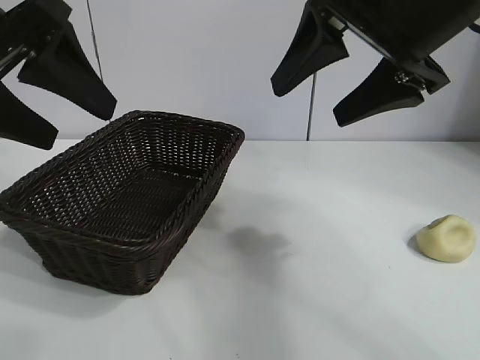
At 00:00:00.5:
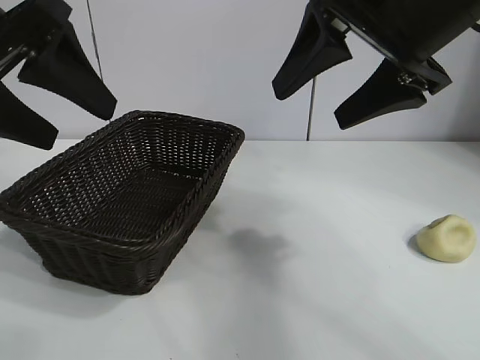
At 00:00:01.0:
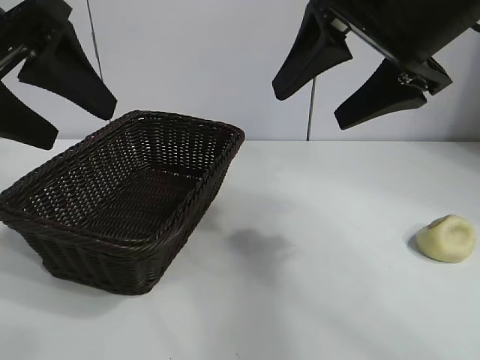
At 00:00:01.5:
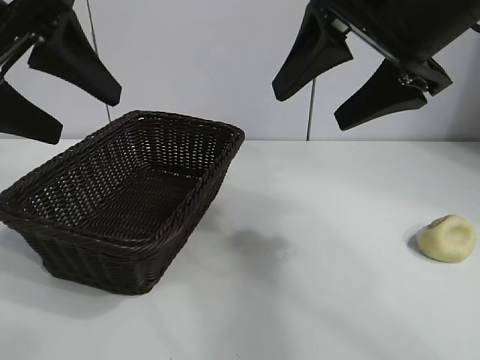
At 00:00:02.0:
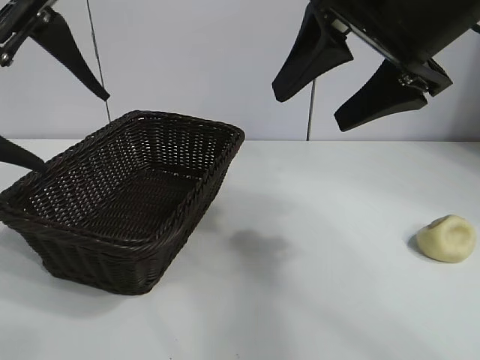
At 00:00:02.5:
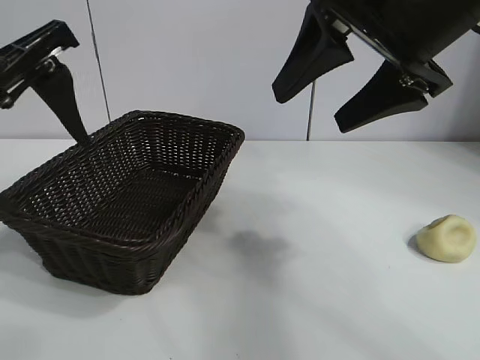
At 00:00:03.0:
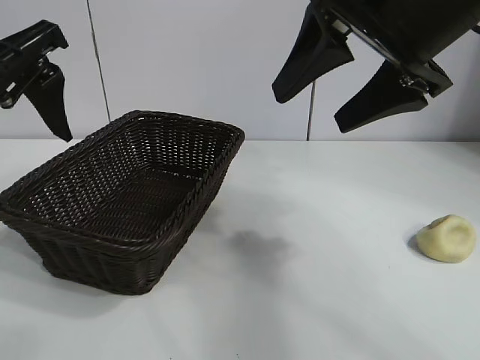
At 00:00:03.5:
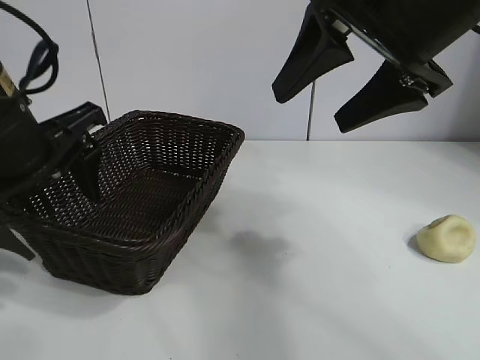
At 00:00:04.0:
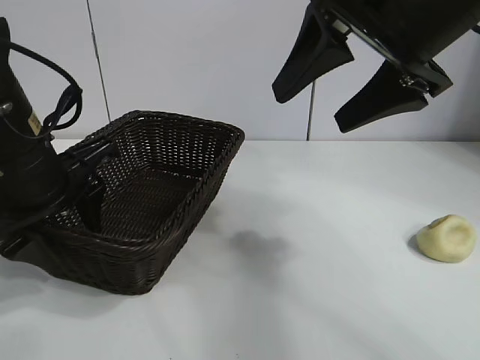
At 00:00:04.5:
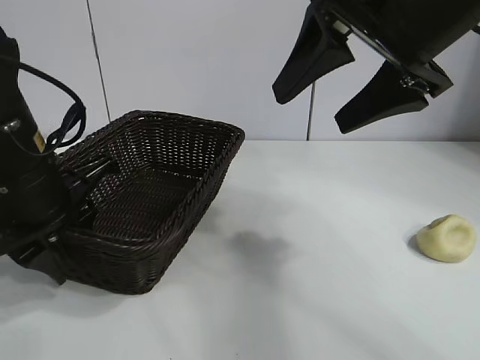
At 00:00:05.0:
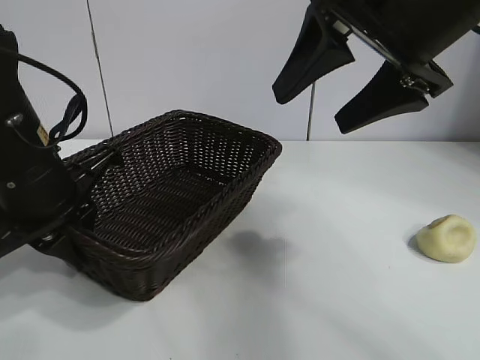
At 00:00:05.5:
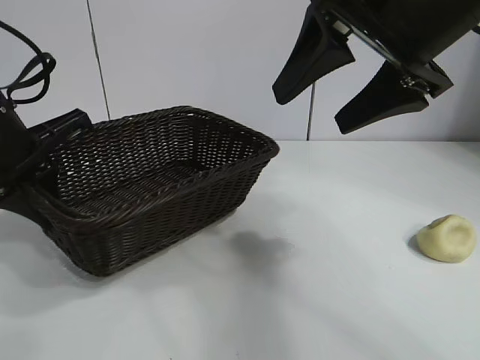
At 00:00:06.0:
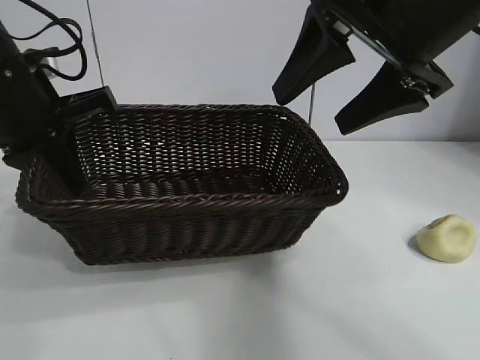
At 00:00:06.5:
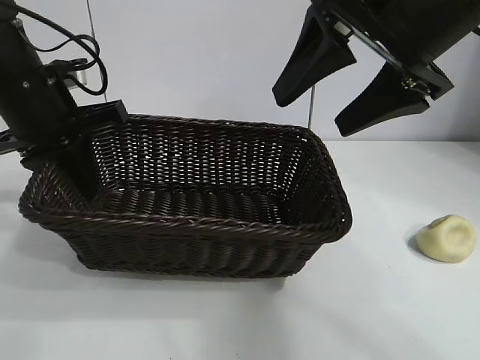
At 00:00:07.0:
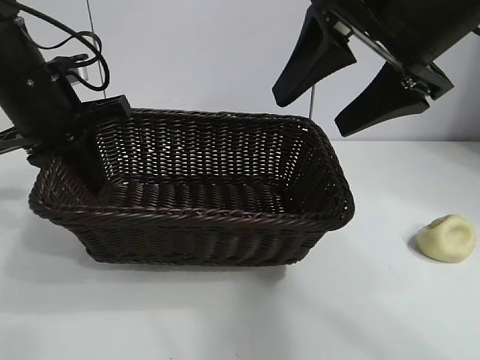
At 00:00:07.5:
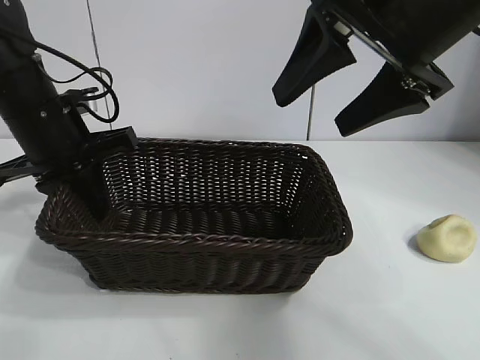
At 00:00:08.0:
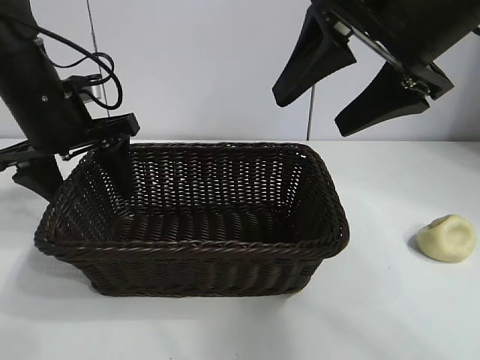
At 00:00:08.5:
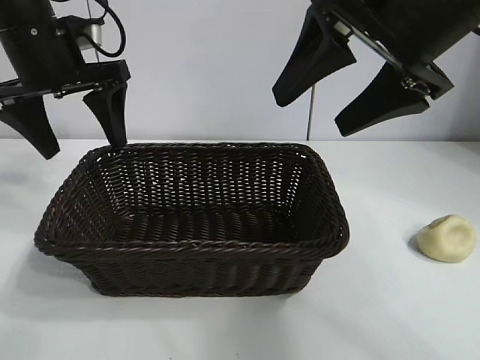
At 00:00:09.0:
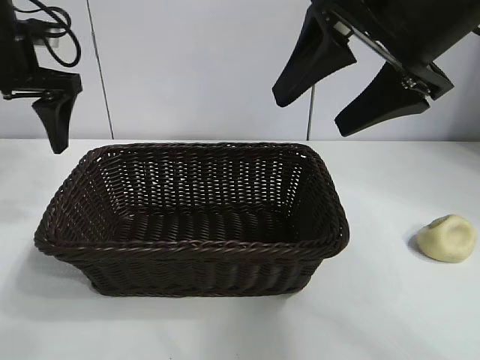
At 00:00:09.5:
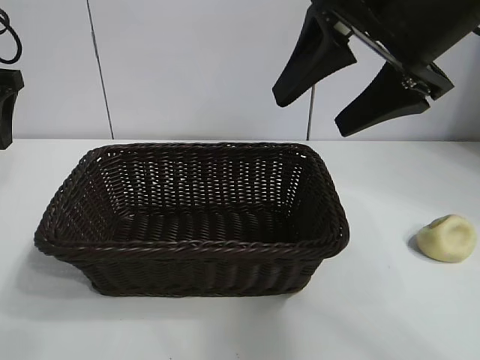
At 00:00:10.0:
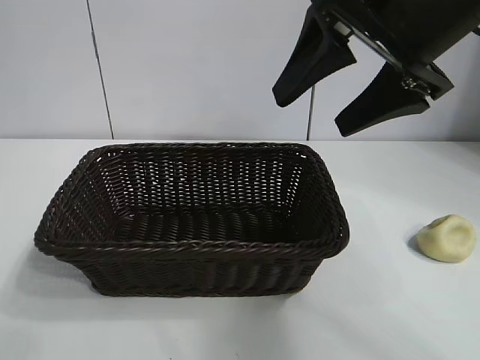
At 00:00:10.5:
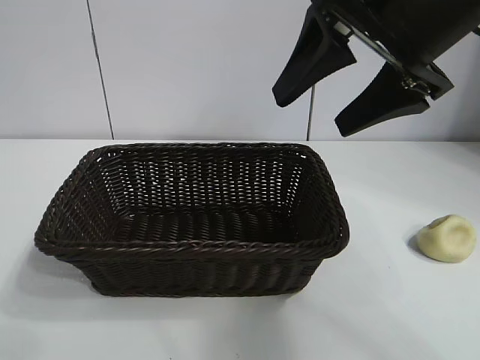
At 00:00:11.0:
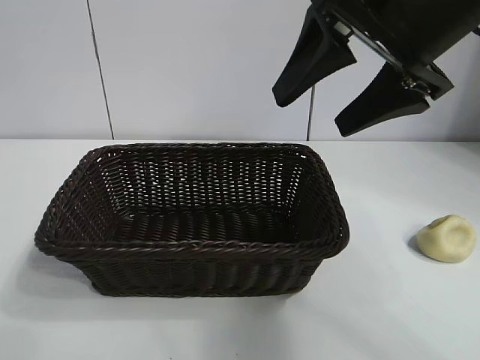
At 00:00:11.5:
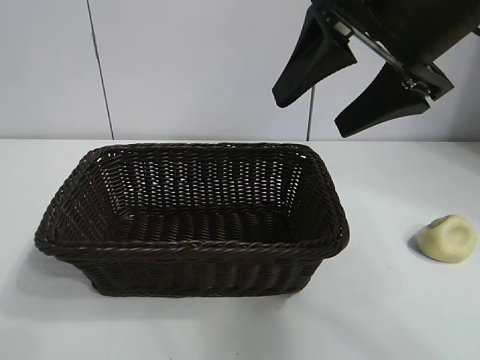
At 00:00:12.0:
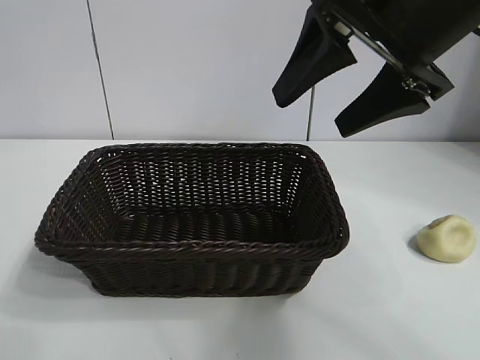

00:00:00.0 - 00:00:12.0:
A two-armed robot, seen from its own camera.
Task of the whole recording: pick up the egg yolk pastry and put it into the basket.
Step, 00:00:01.5 - 00:00:04.5: Grasp the basket with left gripper.
Step, 00:00:05.0 - 00:00:08.0: Place the basket in the center of view with left gripper.

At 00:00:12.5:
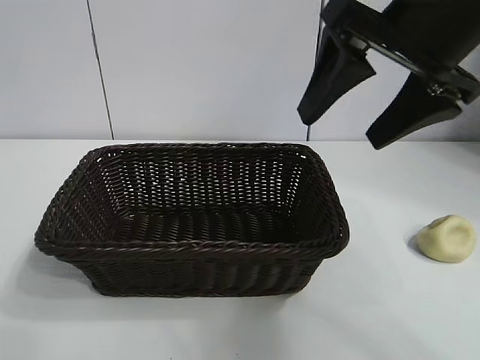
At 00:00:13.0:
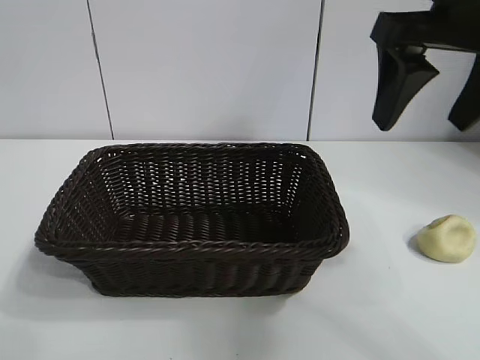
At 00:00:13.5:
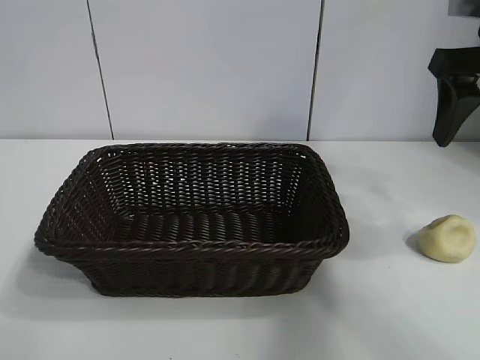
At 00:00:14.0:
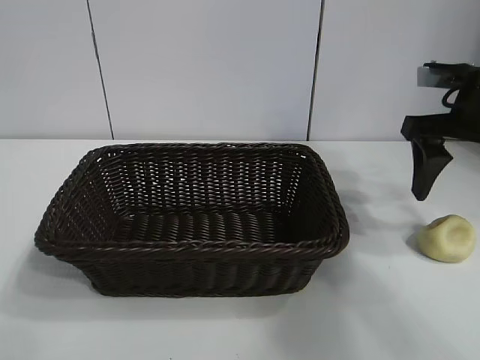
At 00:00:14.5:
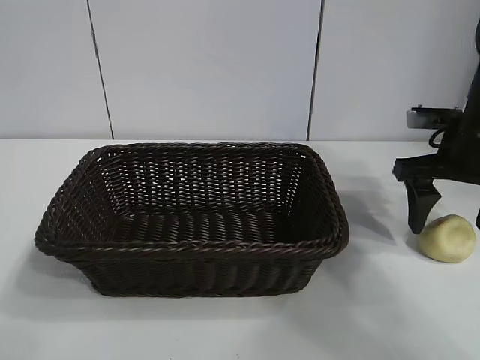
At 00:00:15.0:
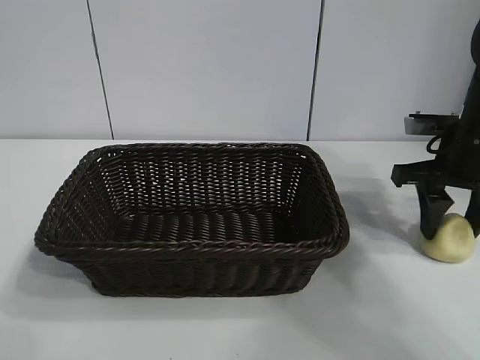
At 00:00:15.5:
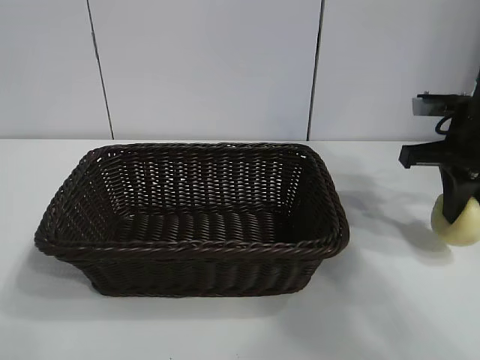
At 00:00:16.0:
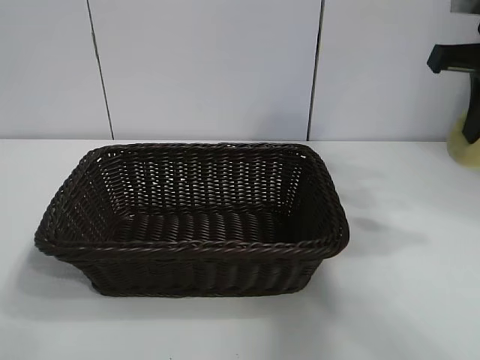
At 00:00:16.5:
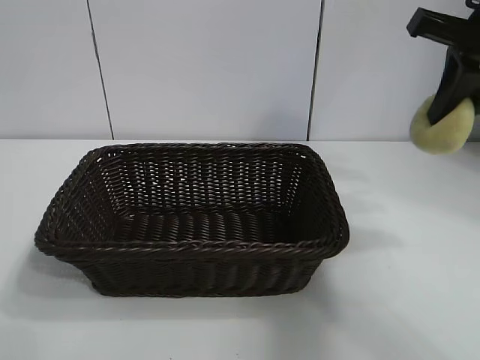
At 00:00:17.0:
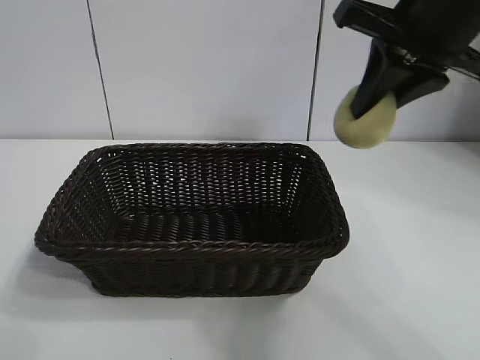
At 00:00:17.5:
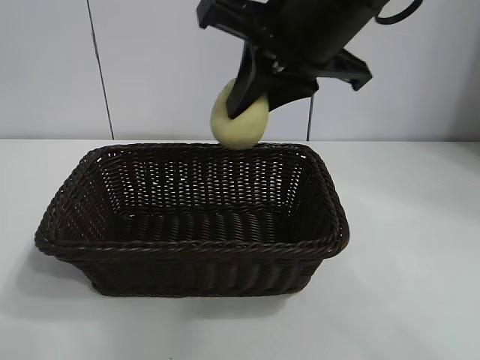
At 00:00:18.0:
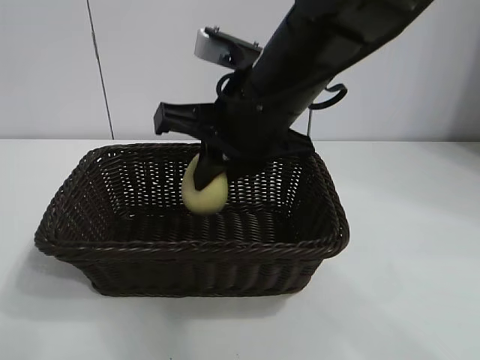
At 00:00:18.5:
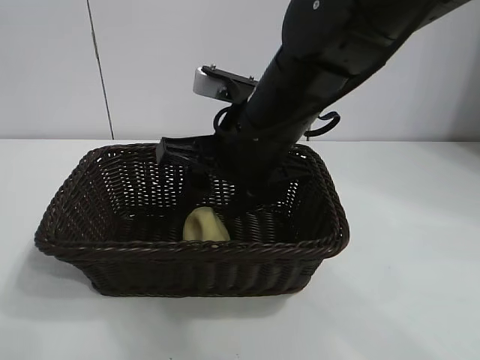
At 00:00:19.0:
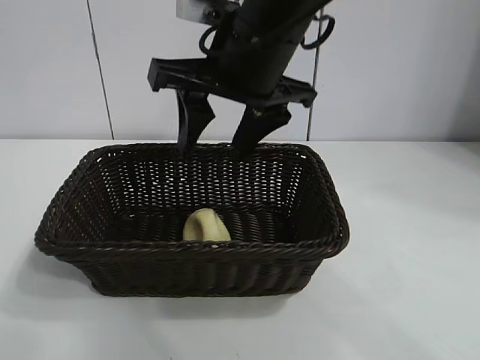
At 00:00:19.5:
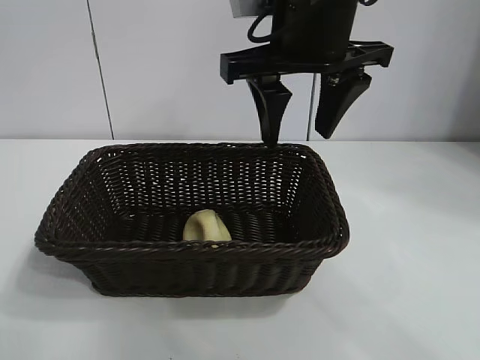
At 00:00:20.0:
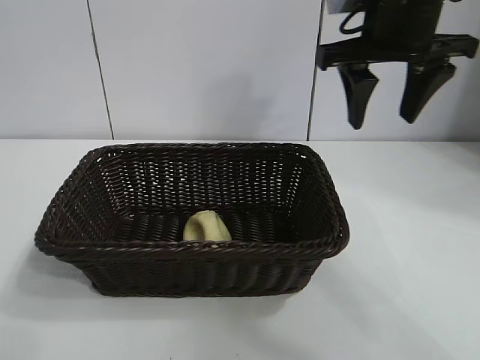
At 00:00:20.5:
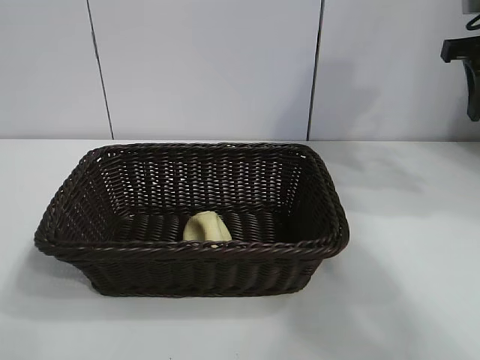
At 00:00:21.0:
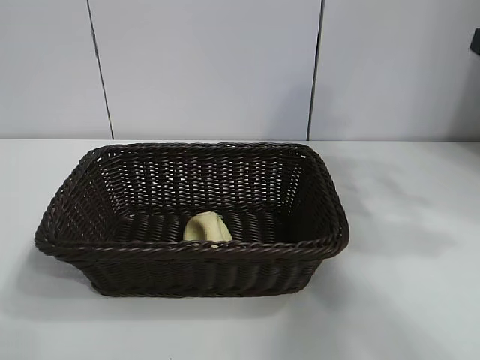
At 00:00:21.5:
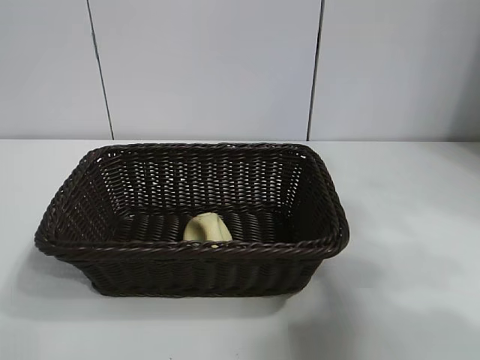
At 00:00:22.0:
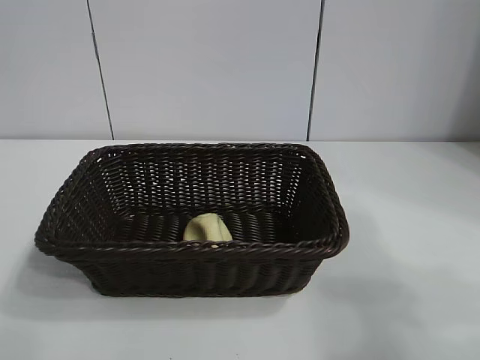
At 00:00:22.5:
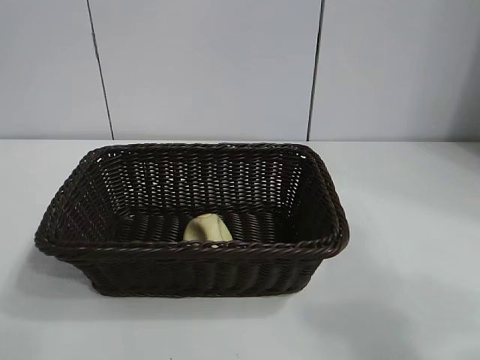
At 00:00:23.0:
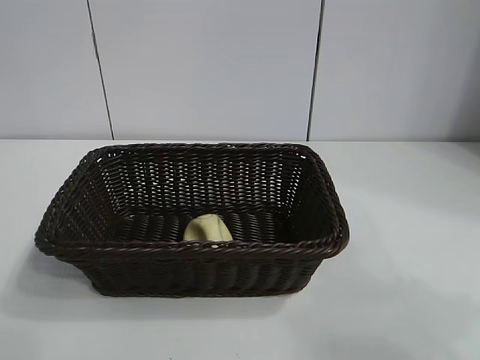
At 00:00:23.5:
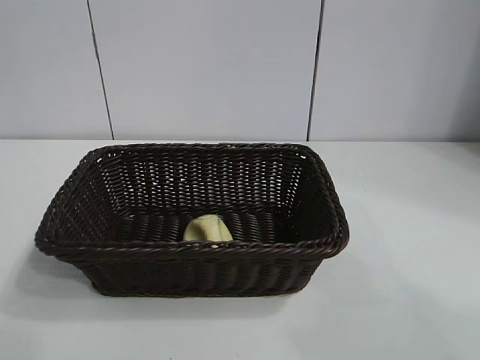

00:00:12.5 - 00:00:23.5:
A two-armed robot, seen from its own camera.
Task of the whole recording: pick up the egg yolk pastry and put it into the basket.
Step, 00:00:12.5 - 00:00:15.0: Grasp egg yolk pastry with right gripper.
Step, 00:00:15.5 - 00:00:18.5: Place the egg yolk pastry in the basket with right gripper.
